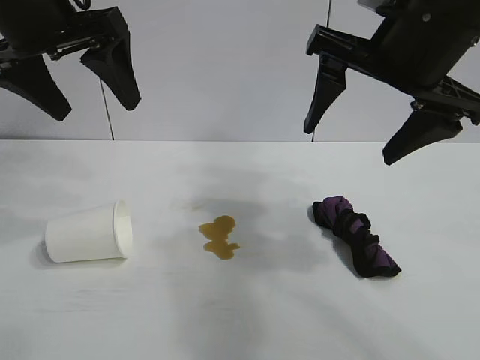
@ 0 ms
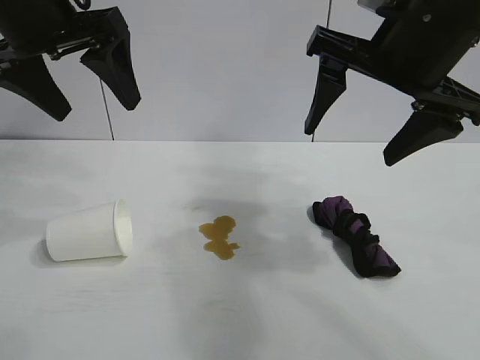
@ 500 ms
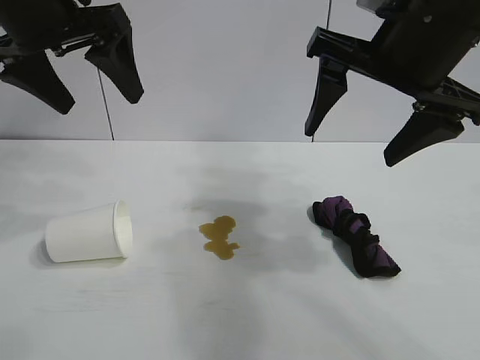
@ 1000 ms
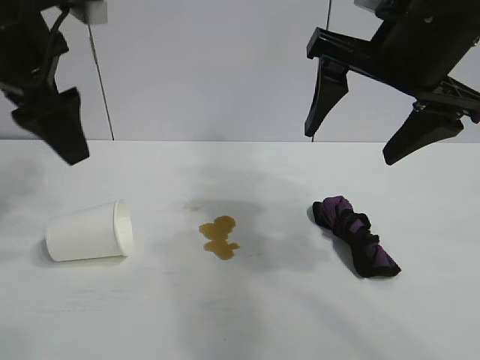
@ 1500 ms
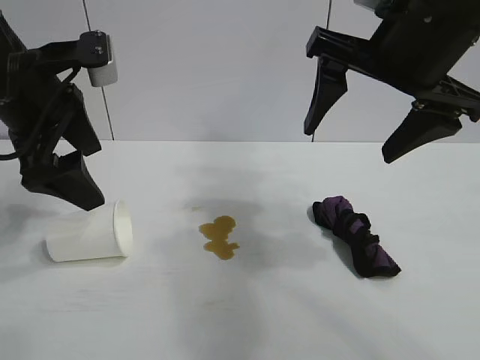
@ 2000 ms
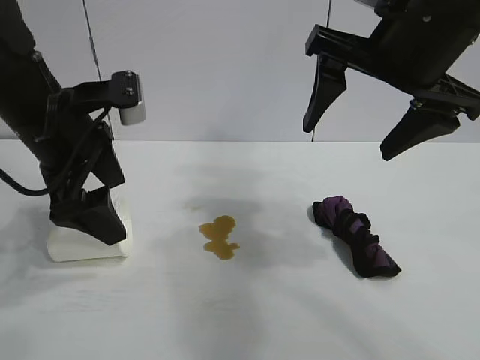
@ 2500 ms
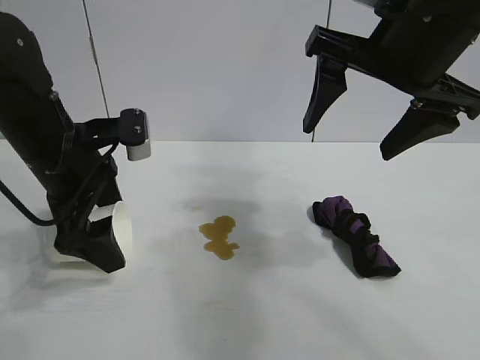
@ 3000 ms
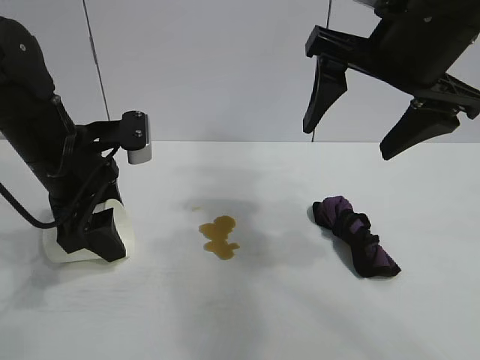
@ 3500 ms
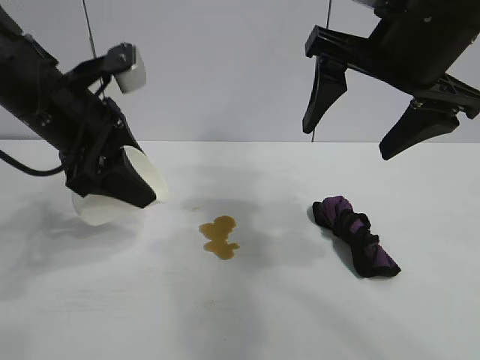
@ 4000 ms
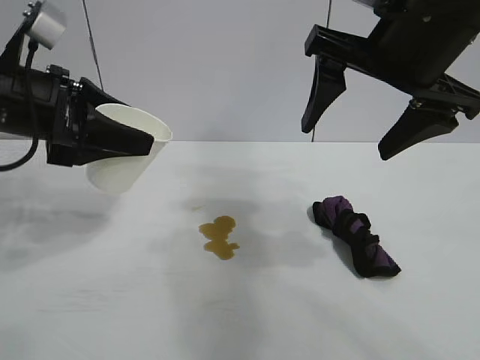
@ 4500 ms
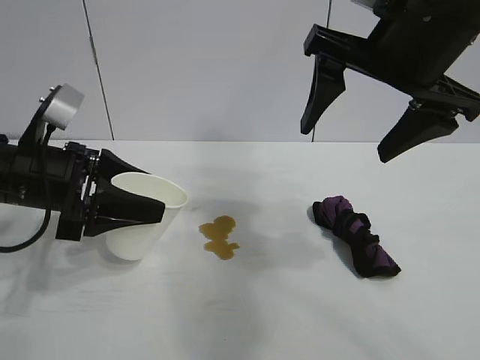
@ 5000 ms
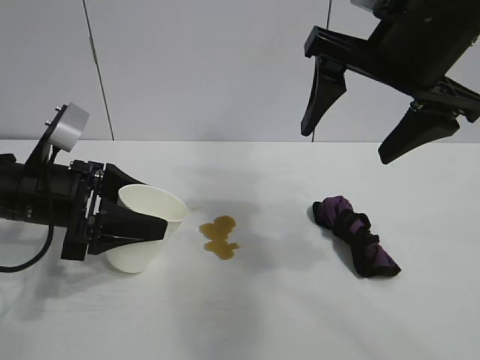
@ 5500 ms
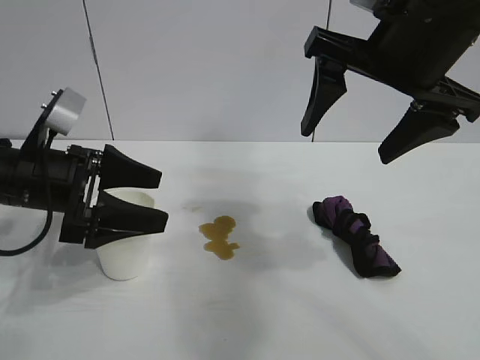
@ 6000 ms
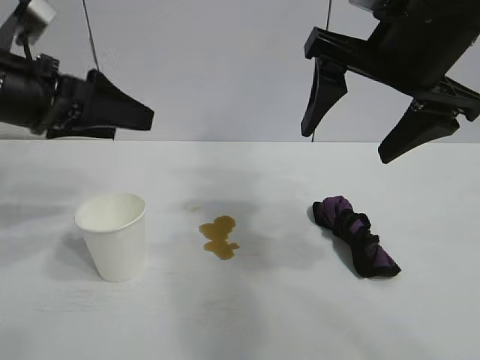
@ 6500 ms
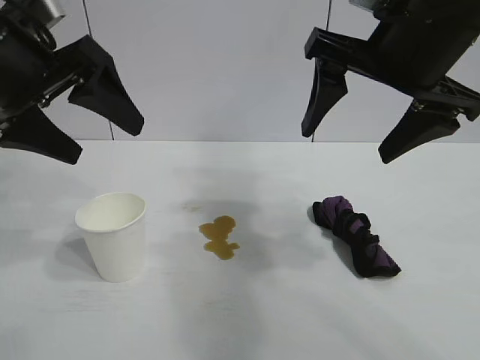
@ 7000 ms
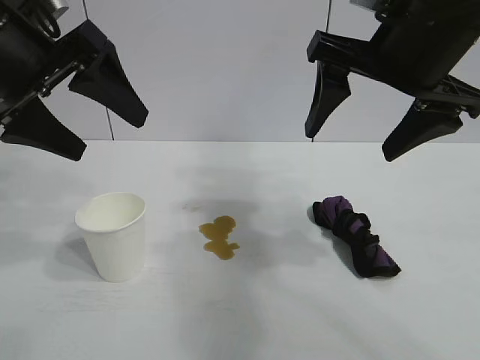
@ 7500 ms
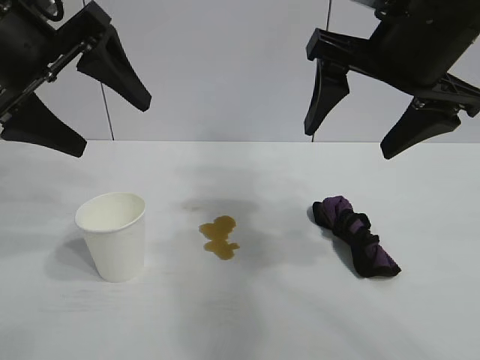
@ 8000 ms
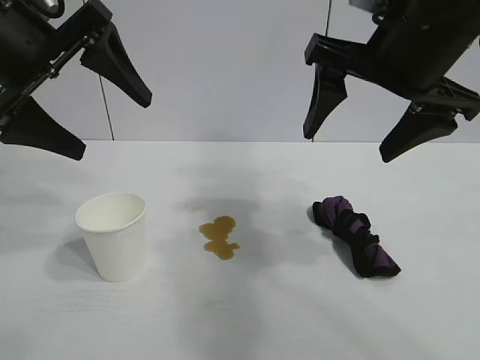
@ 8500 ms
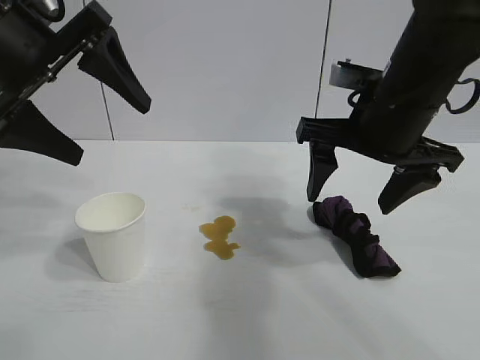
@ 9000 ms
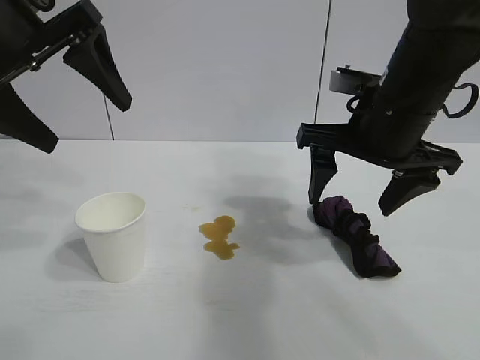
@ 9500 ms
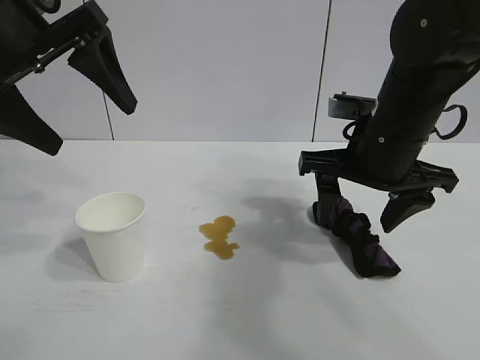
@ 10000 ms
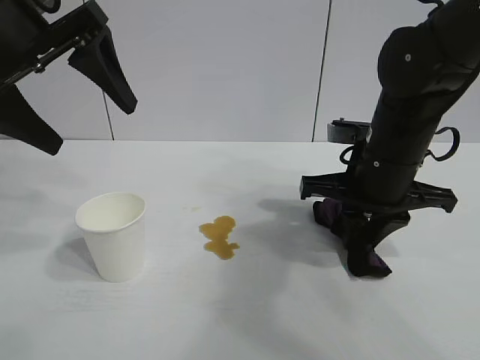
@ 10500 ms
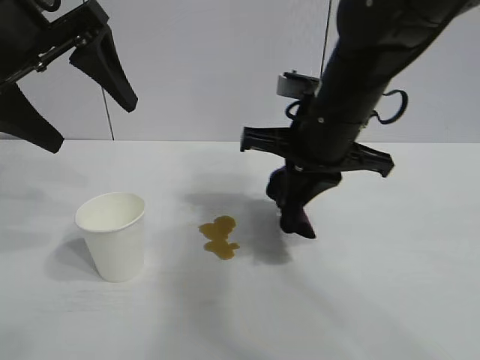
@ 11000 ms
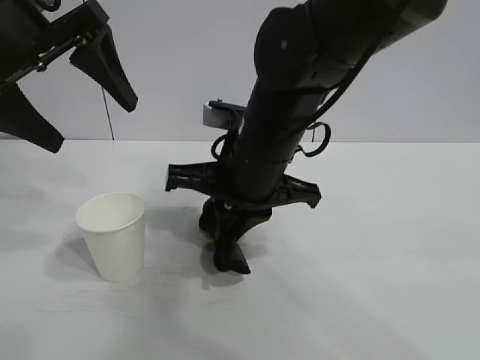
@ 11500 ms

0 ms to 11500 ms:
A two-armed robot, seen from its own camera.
Task of the whole recording: the left gripper pick up the fallen cup and place it upright, the right gripper grasp the black rag and wipe the stain on the table, the right gripper put the black rag back in its original position.
Step, 1000 ms to 3000 ms: Grasp the paper cup with left gripper.
Step, 4000 ms to 6000 ms: Stand the paper cup upright with left gripper.
Step, 6500 ms to 10500 ms: Grasp the rag with right gripper.
